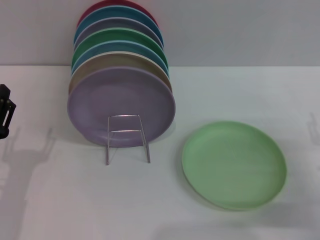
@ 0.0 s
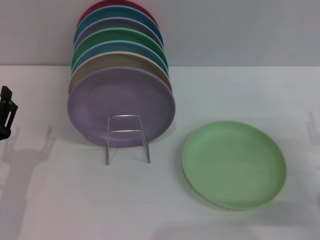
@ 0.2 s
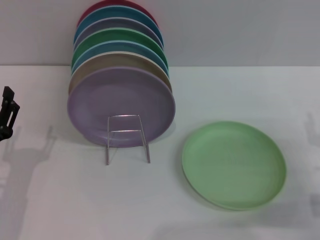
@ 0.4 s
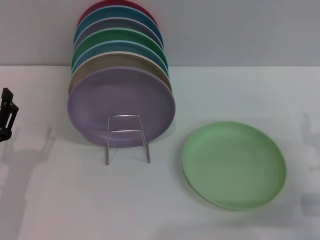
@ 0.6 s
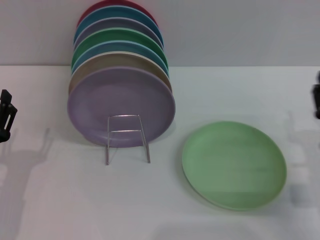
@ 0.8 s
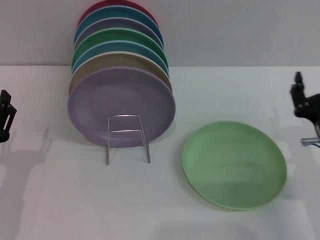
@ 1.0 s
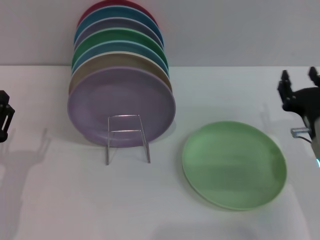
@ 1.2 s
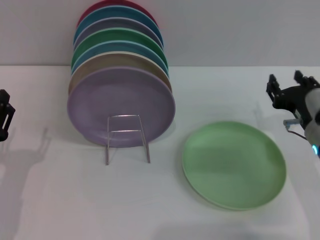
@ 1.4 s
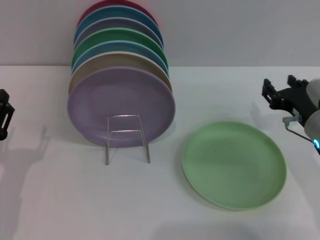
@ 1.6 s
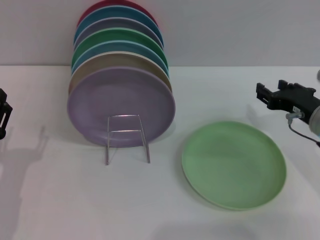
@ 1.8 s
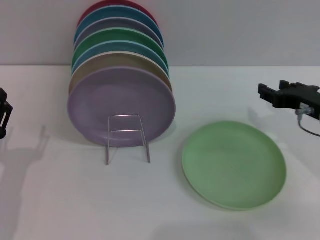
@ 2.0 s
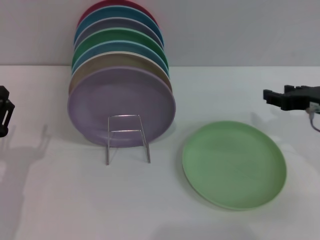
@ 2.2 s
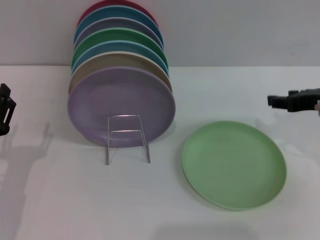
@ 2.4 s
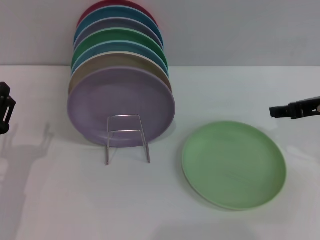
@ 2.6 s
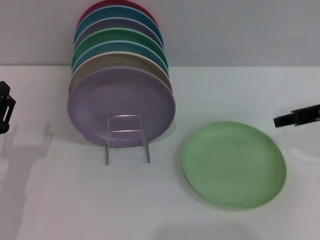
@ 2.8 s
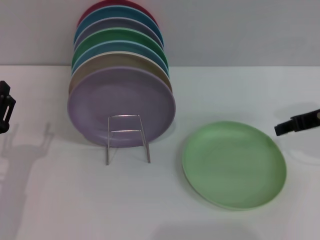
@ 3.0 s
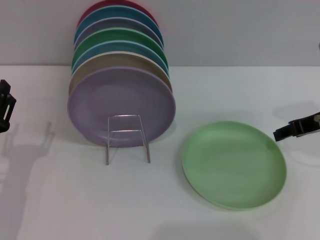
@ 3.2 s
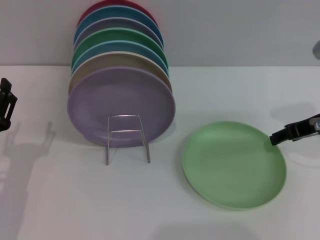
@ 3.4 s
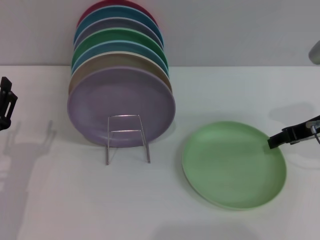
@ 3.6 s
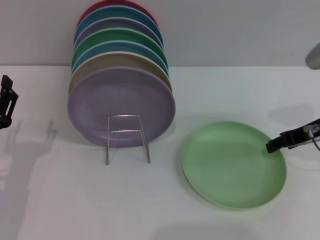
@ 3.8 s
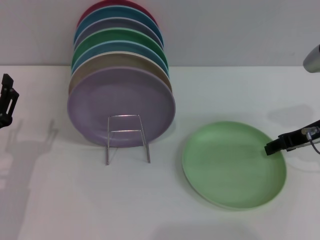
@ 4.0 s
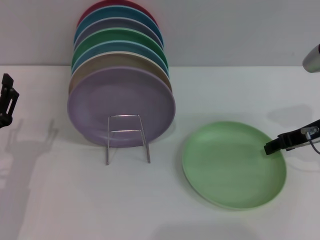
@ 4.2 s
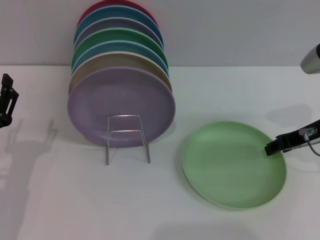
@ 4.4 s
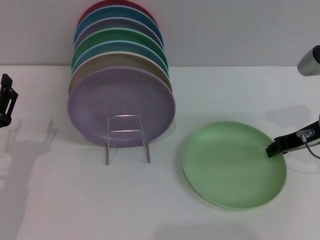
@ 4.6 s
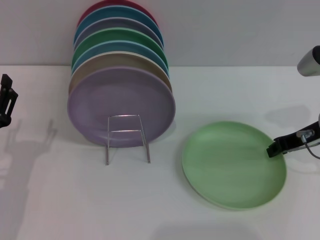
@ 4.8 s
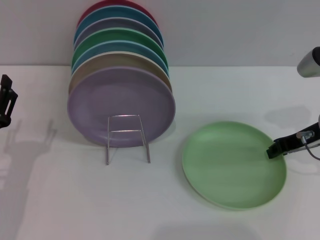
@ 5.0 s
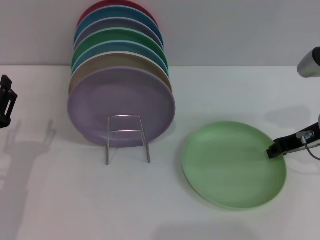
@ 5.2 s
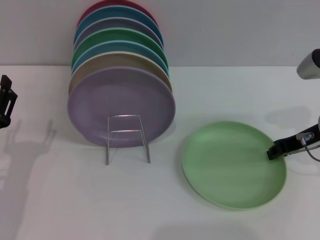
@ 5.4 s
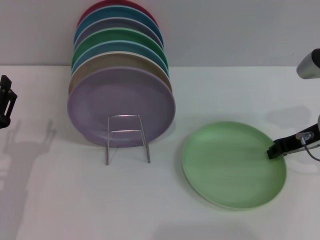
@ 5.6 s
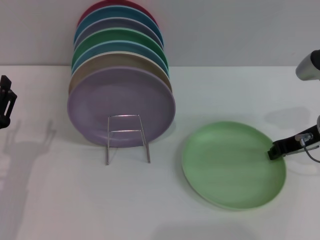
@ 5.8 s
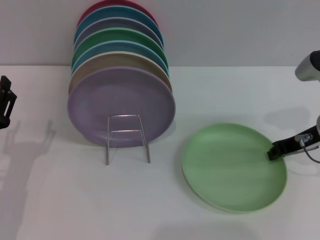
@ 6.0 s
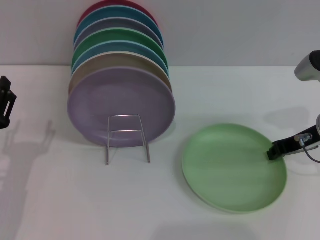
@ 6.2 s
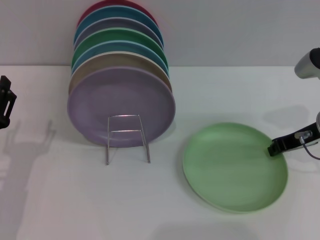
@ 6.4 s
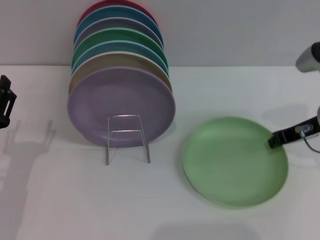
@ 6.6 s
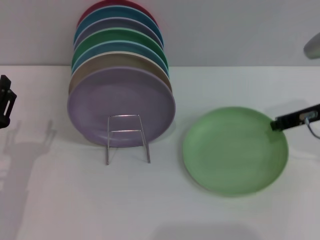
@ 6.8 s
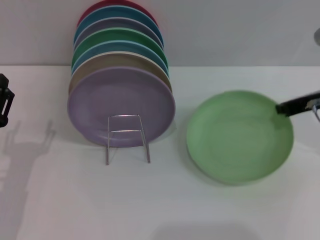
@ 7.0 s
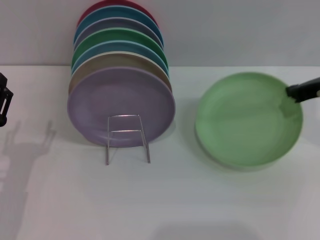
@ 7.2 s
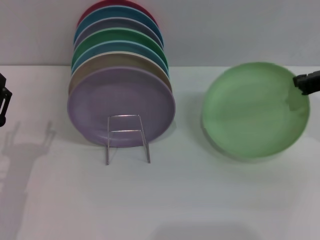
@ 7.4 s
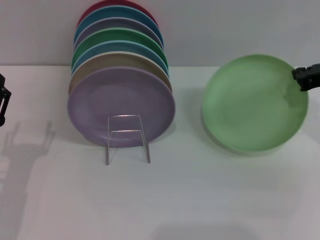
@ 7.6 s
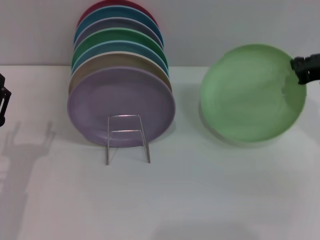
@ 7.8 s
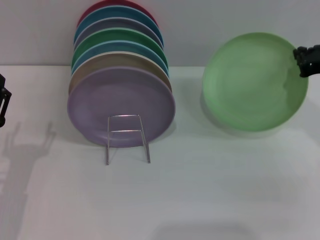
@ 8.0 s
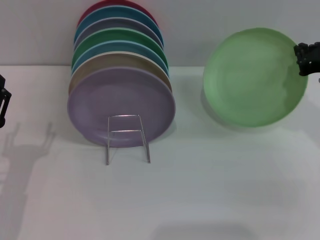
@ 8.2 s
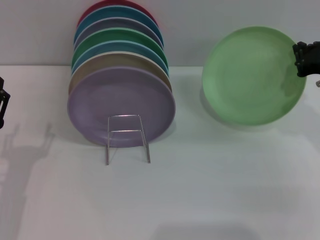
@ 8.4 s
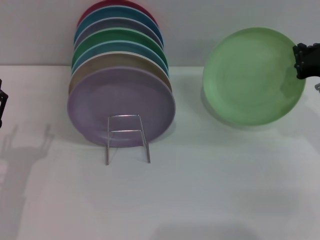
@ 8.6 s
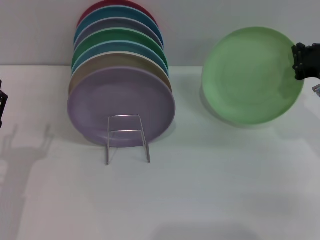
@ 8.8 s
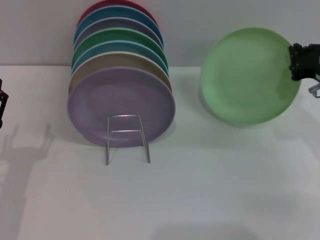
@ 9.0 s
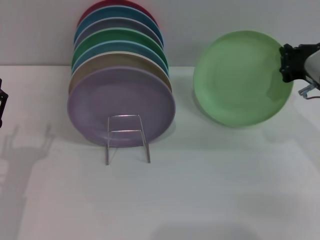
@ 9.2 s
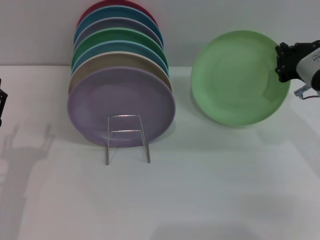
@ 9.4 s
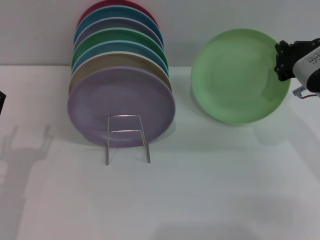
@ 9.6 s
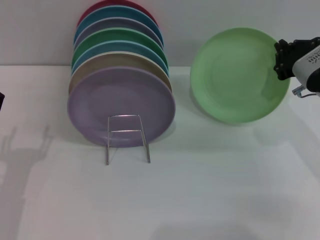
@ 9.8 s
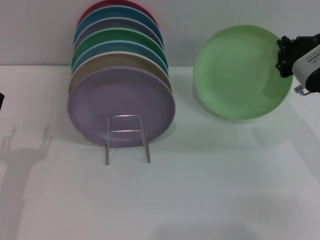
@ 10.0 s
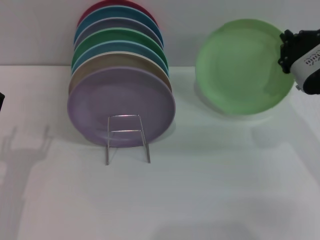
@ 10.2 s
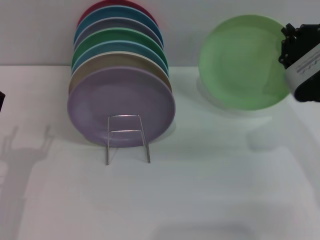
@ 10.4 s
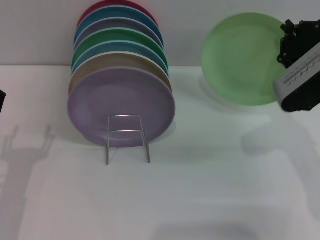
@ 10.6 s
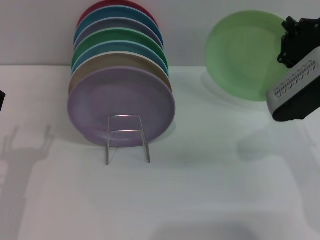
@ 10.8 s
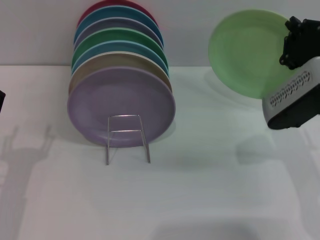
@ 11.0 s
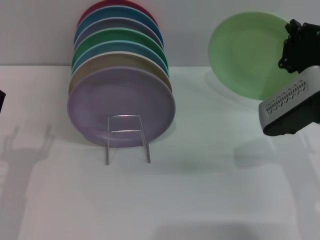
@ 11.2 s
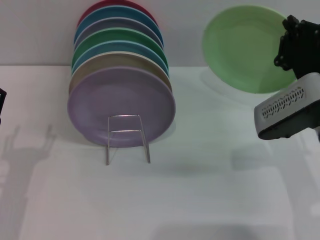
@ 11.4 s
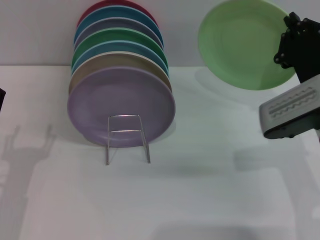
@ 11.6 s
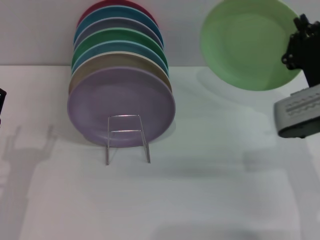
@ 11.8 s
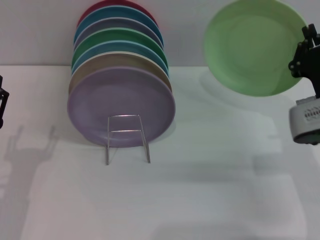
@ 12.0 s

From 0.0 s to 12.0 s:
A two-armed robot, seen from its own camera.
Task of the whole recording: Grip the plate with one hand, pass it to the other, then set it on the shelf.
Step, from 0.0 s to 7.4 s: Pick up the plate with the right gripper.
From 0.0 s to 1.6 s: The right gripper moves forward and to the left, approximately 10 cm.
From 1.6 s to 3.0 s: The right gripper goes roughly 10 cm upward.
From 3.0 s to 4.4 s: The grippers stay close to where they were, moving slightly.
From 4.4 s to 6.0 s: The right gripper closes its fingers.
From 6.0 s to 7.6 s: The right gripper is displaced upward by roughly 5 cm.
From 10.4 s to 12.0 s: The right gripper travels downward by approximately 5 cm.

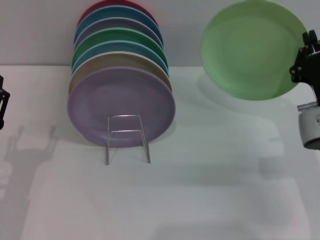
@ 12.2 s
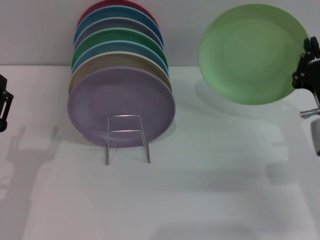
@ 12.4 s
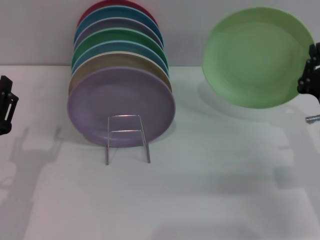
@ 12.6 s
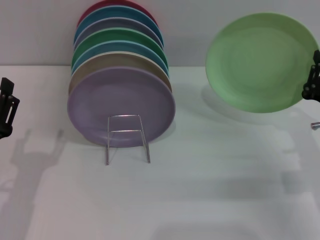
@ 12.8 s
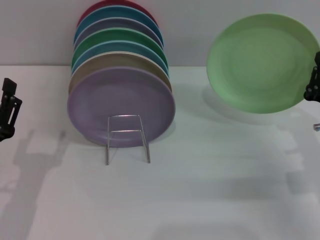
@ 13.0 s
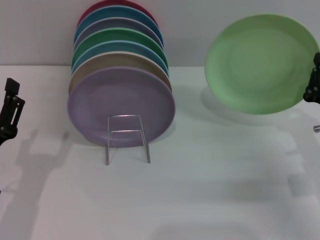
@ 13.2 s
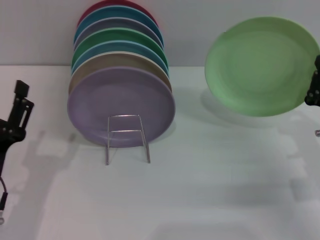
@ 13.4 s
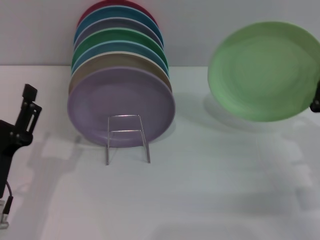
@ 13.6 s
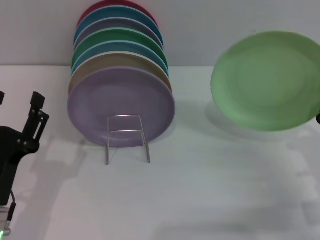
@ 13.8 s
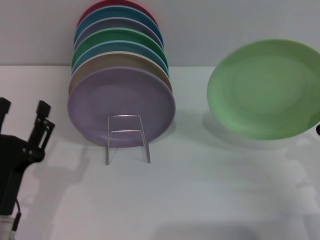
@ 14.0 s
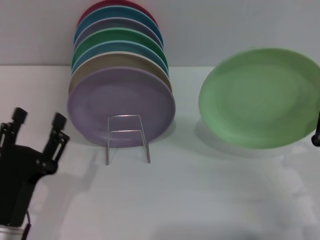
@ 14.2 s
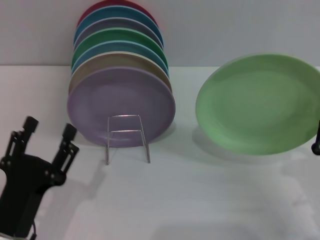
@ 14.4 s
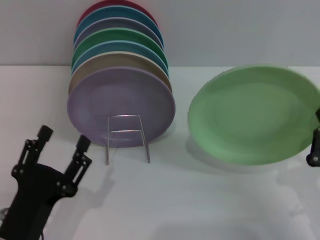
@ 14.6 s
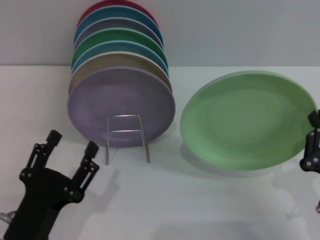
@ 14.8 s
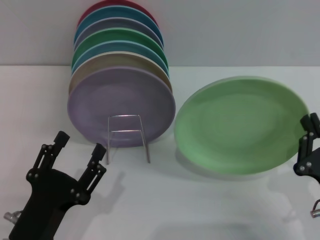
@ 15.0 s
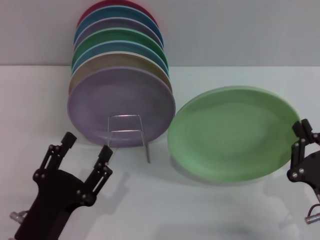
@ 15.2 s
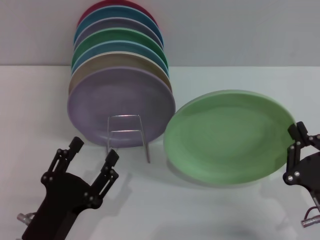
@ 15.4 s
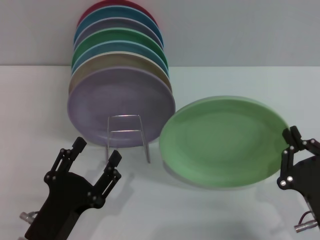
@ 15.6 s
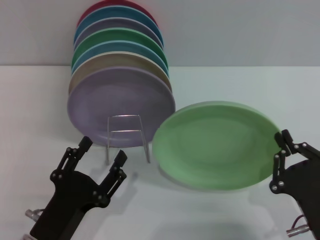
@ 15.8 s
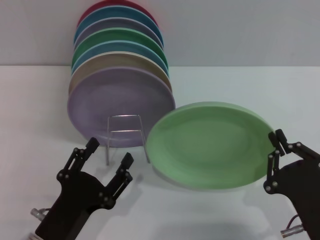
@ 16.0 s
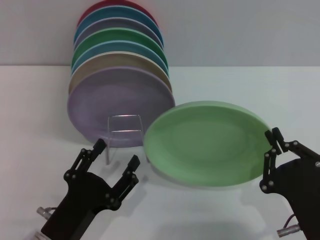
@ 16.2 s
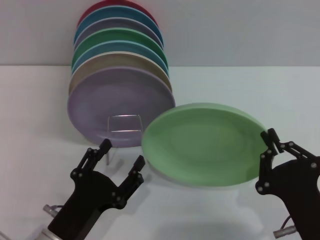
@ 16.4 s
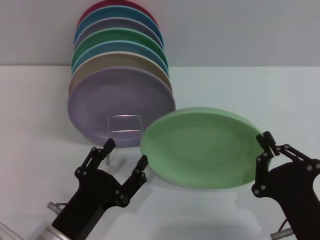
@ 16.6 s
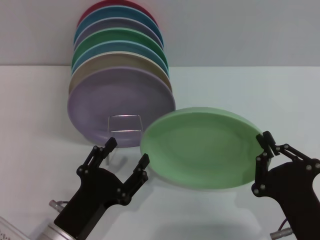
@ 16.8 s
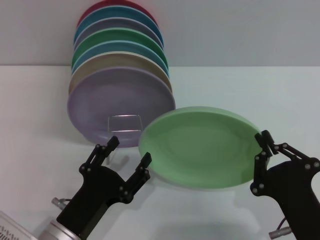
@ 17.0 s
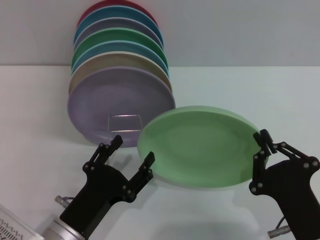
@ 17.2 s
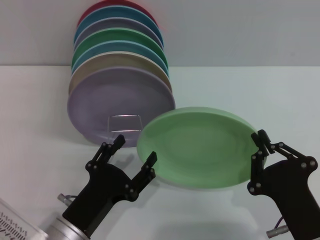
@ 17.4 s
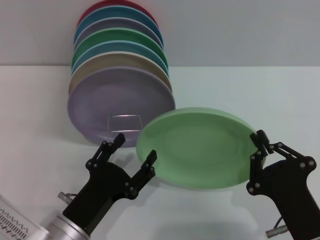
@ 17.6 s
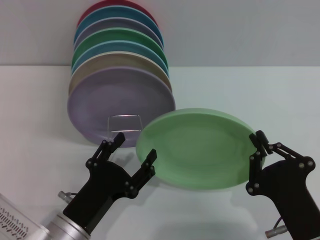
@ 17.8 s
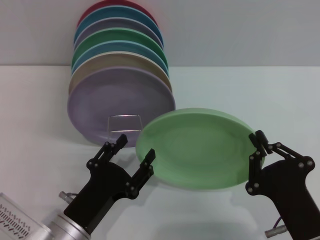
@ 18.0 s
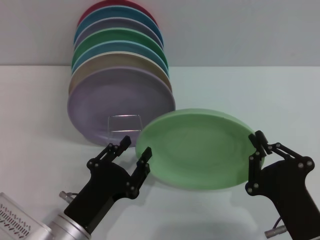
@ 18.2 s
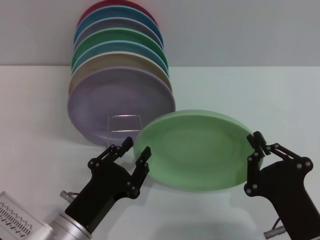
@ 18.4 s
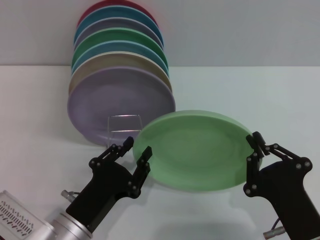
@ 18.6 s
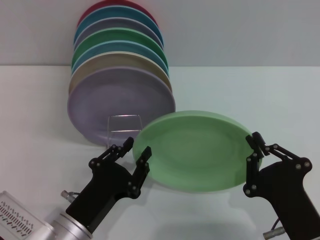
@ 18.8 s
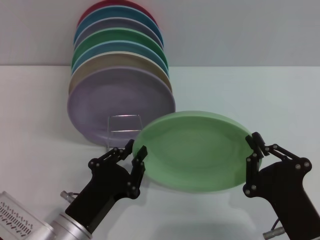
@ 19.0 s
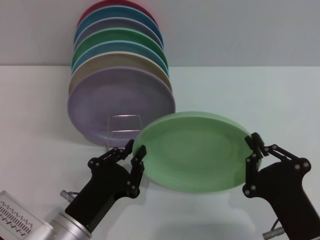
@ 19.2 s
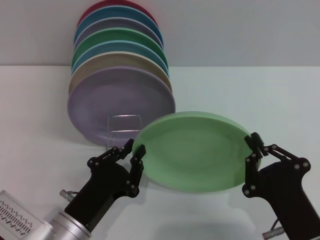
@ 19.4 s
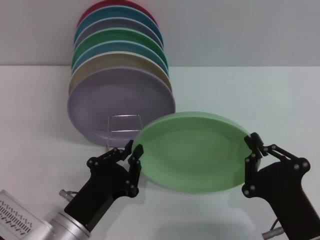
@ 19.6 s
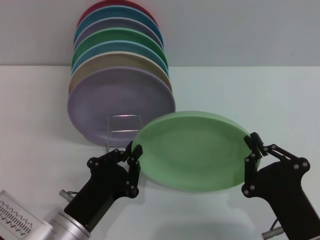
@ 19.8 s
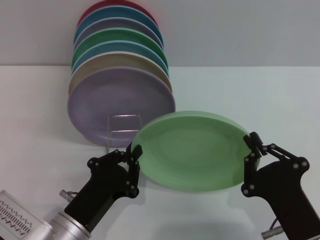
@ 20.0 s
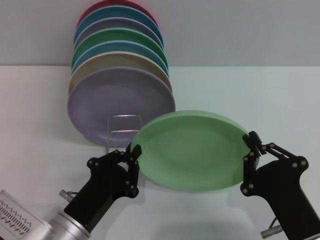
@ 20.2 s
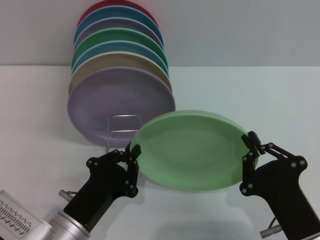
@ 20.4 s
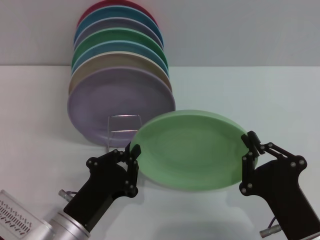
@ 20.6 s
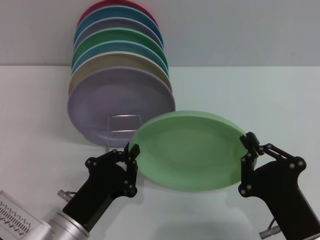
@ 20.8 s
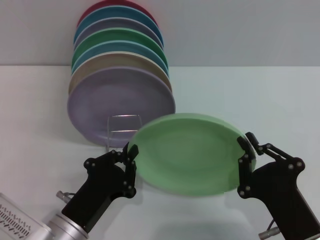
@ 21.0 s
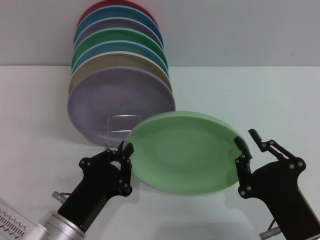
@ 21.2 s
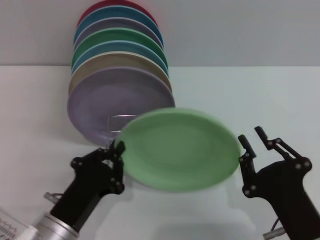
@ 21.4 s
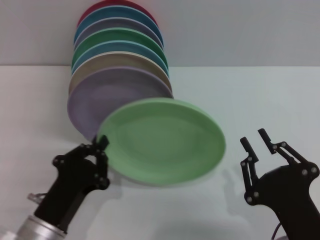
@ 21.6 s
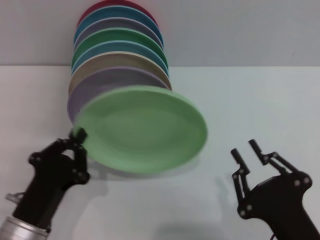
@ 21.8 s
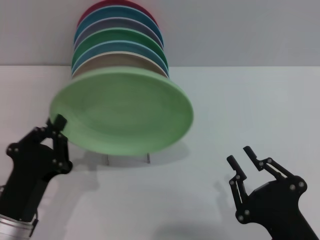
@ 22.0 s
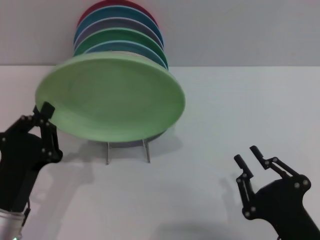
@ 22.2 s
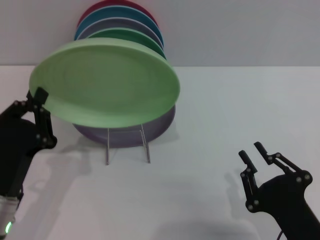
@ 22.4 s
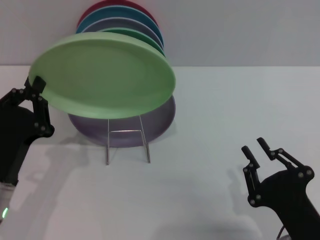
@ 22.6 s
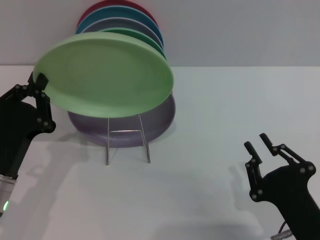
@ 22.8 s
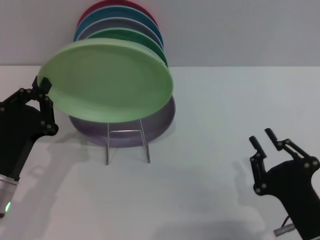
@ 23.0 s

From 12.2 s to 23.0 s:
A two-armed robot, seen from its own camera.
Task of the whole recording: Grip the plate with one hand, pass it to the other, then set it on the shelf.
Step, from 12.2 s to 21.4 s: Pass the plate from the right gripper to the left gripper.
From 12.2 s to 13.8 s: The right gripper moves backward, about 5 cm.
From 13.8 s to 15.2 s: The right gripper shifts approximately 10 cm backward; the left gripper moves approximately 5 cm.
From 15.2 s to 16.8 s: The right gripper is displaced to the left by some 5 cm.
From 16.8 s to 18.4 s: The grippers make only small movements.
From 18.4 s to 20.0 s: The left gripper closes its fingers.
From 20.0 s to 21.4 s: The grippers stay close to where they were, moving slightly.
From 21.4 s to 23.0 s: The left gripper travels to the left by approximately 5 cm.
